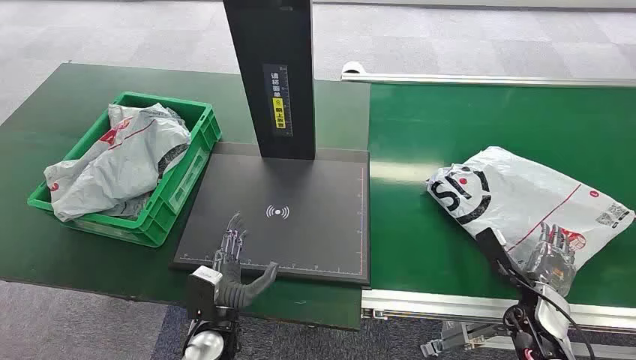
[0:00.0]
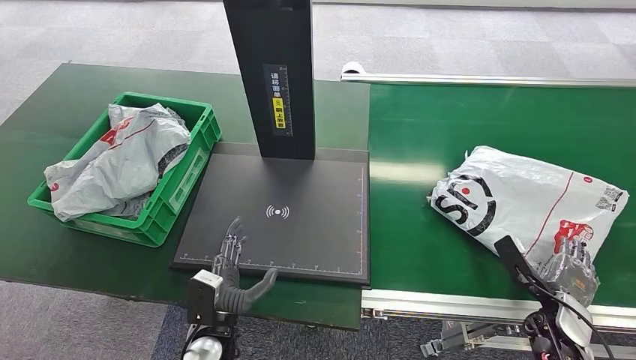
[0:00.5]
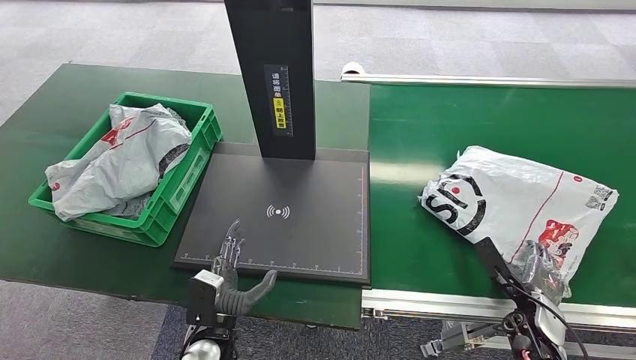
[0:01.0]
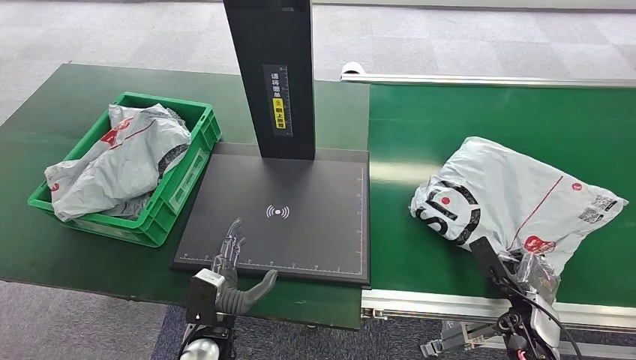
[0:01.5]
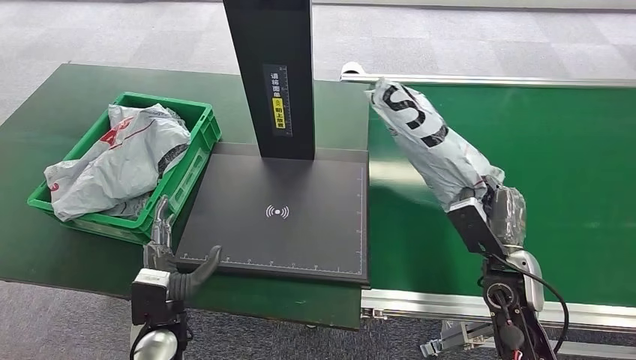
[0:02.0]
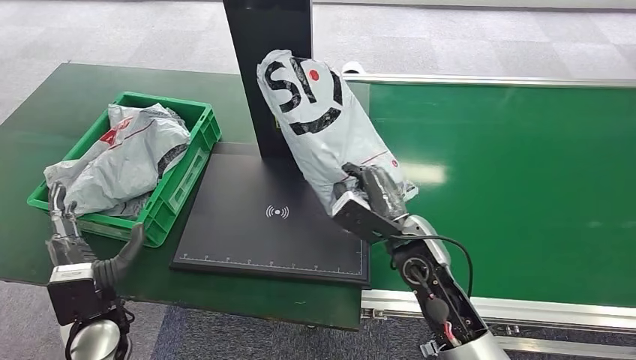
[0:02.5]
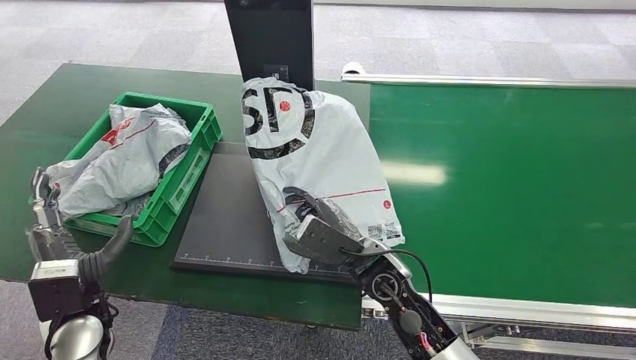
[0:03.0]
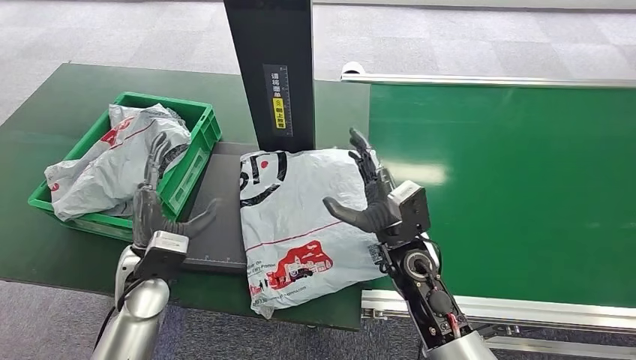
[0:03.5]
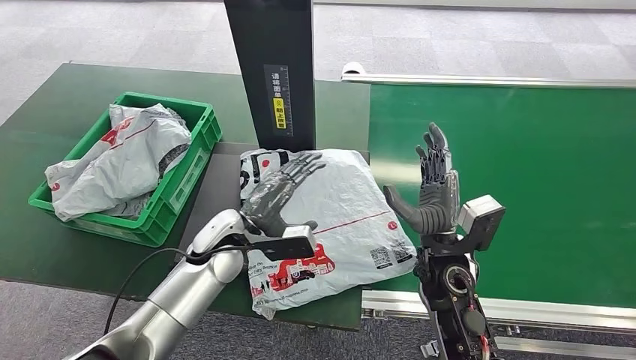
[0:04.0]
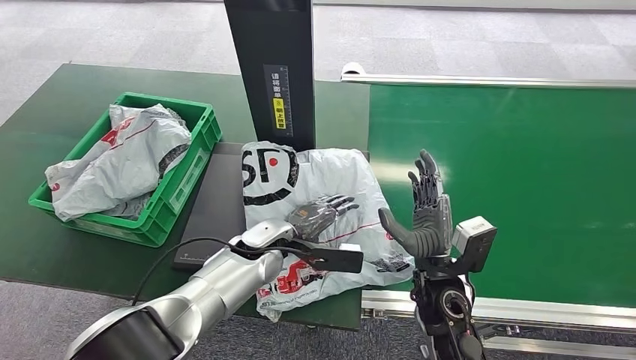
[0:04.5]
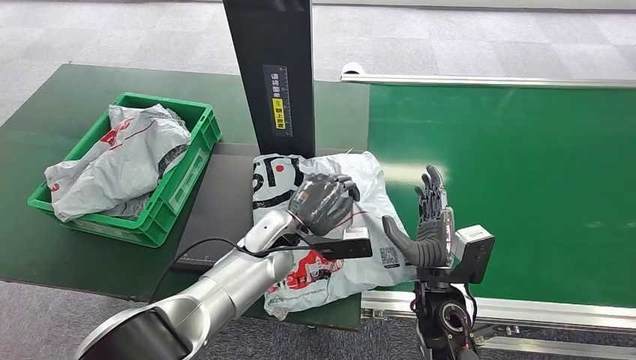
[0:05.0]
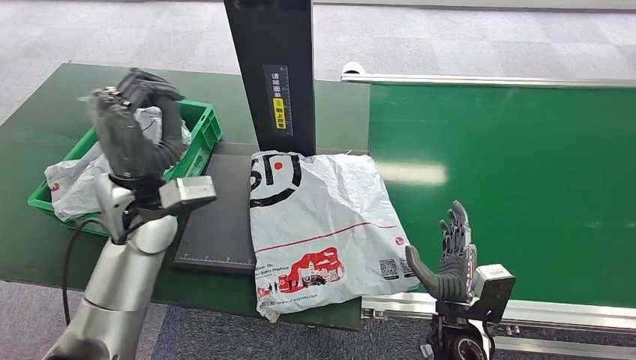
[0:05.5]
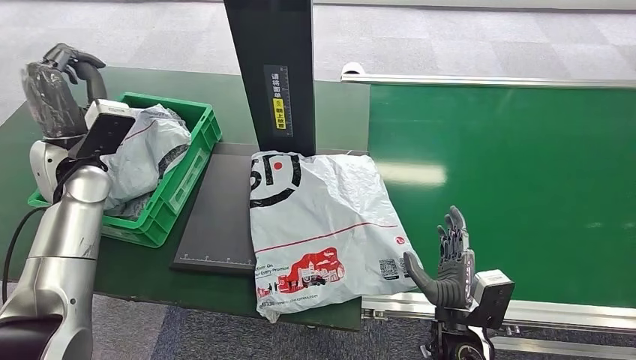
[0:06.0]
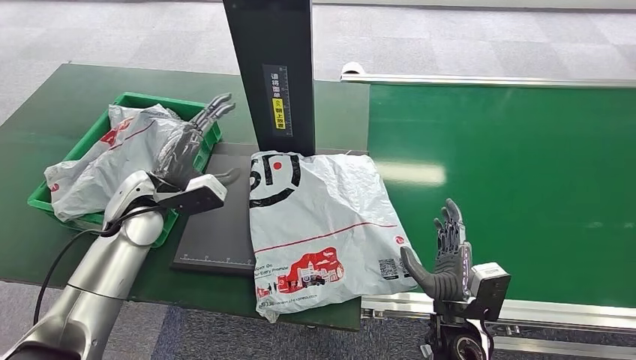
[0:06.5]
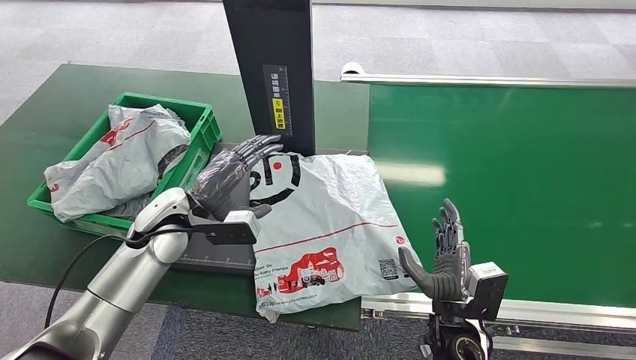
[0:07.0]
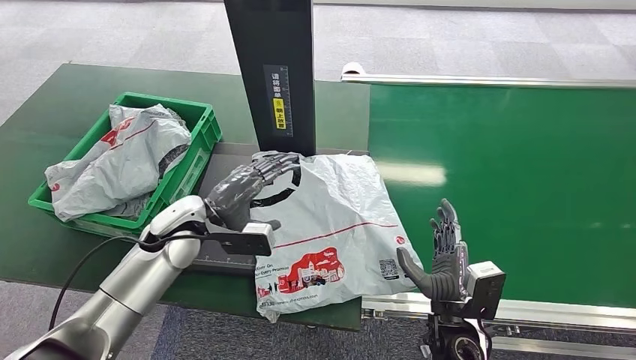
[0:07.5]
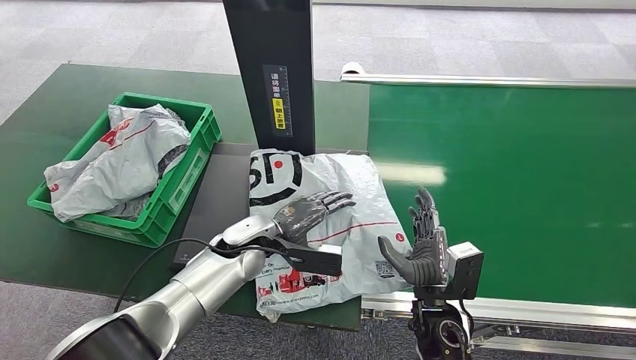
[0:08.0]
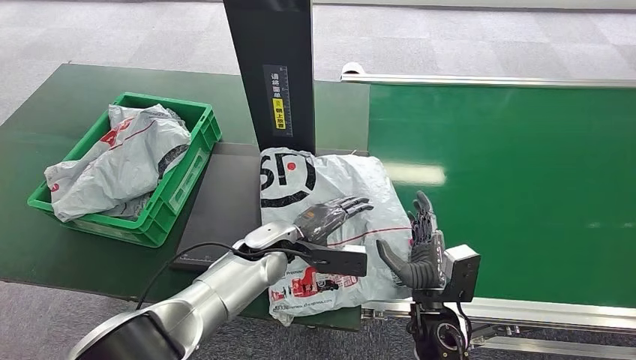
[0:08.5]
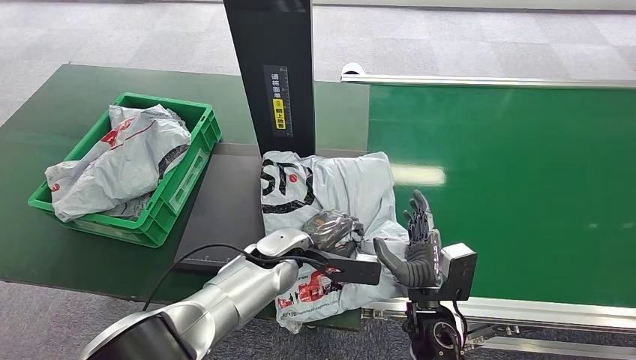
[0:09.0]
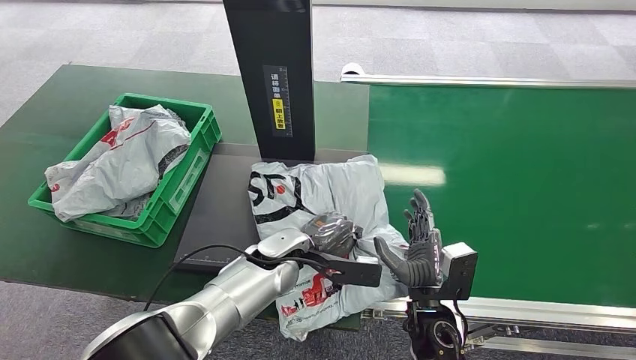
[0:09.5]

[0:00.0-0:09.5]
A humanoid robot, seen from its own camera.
Step, 0:00.0 to 0:01.5: Pick up the package from the conveyor belt.
Step, 0:02.0 to 0:03.0: Place the package onto the inbound machine.
0:05.5 to 0:07.5: The left hand shifts approximately 10 cm downward, and travels to the left and back again, approximately 15 cm each way.

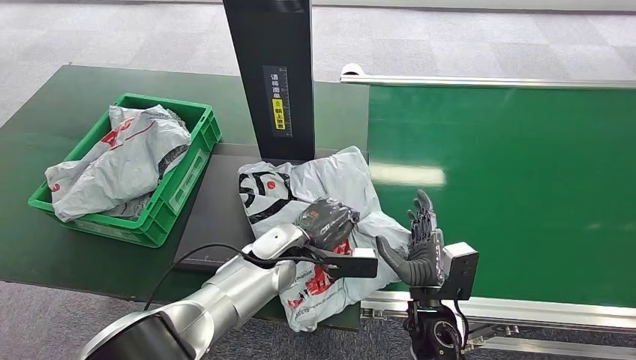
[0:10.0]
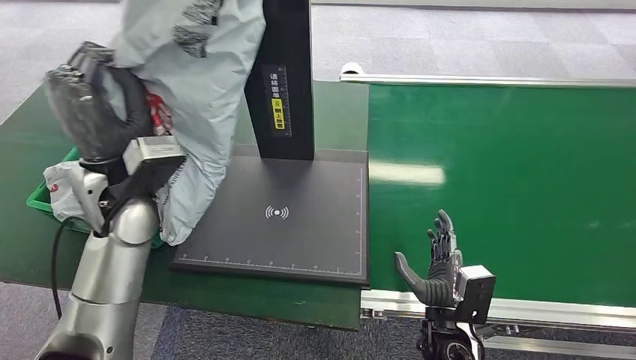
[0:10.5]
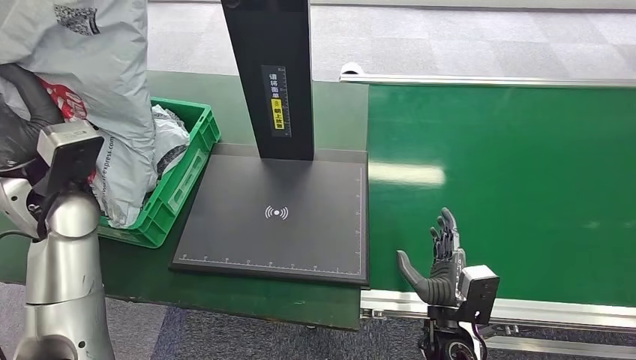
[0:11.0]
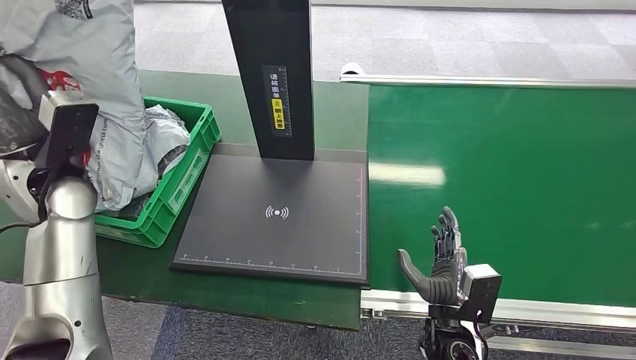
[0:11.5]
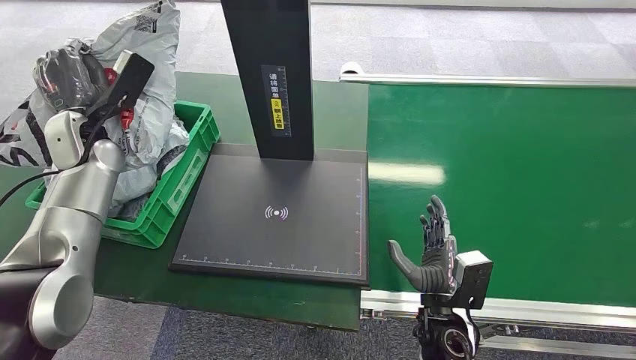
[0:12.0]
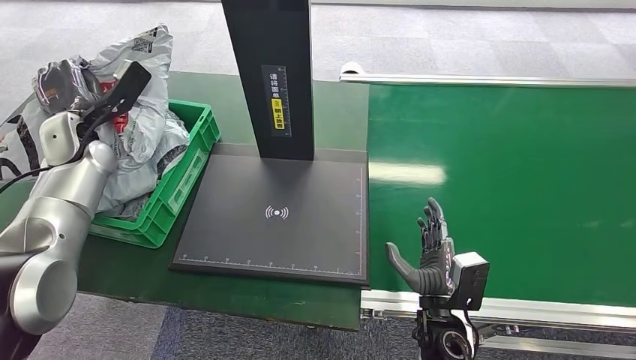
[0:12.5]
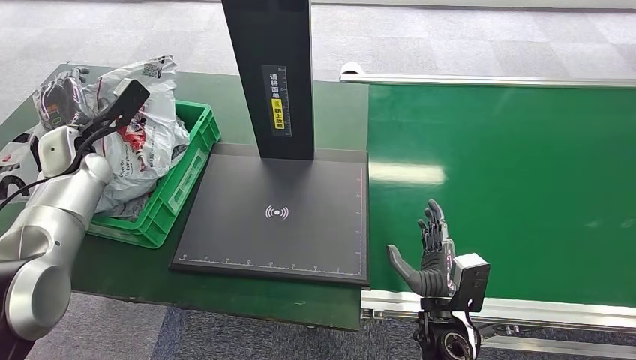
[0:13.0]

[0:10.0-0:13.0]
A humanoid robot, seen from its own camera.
Step, 0:10.5 to 0:13.0: Place the package into the parcel locker.
